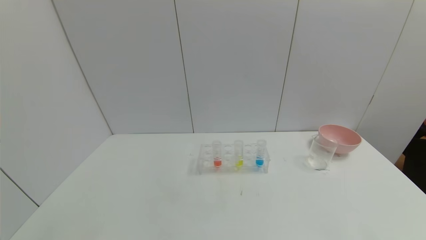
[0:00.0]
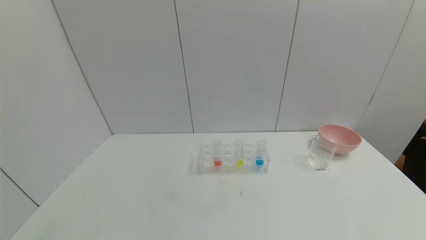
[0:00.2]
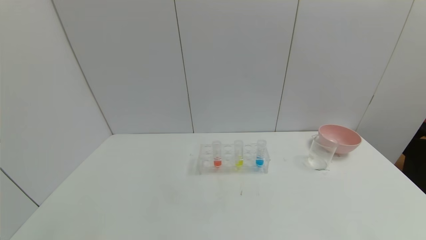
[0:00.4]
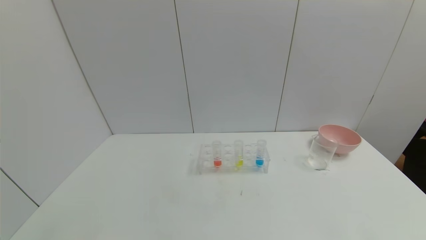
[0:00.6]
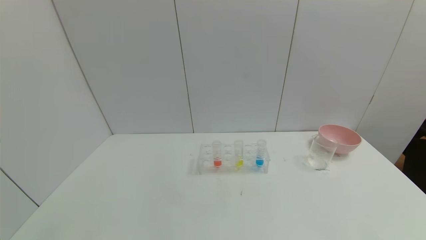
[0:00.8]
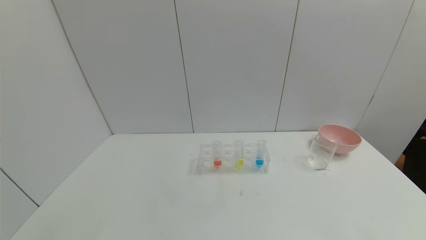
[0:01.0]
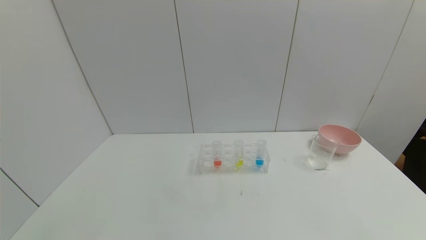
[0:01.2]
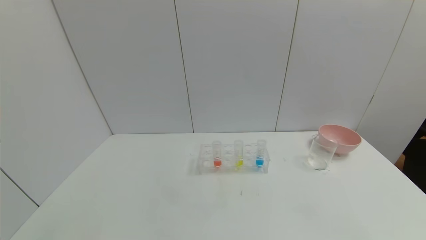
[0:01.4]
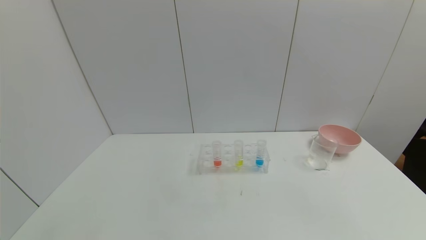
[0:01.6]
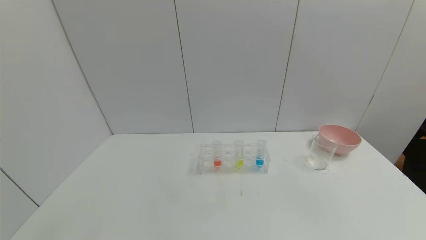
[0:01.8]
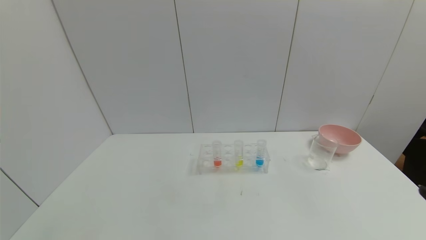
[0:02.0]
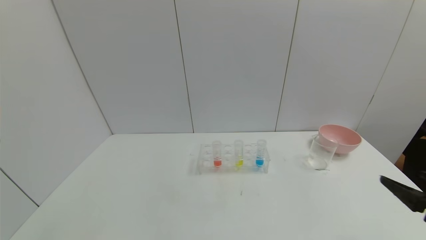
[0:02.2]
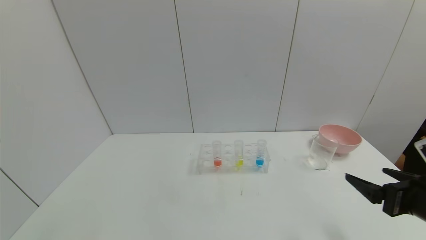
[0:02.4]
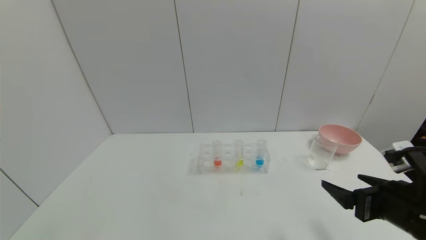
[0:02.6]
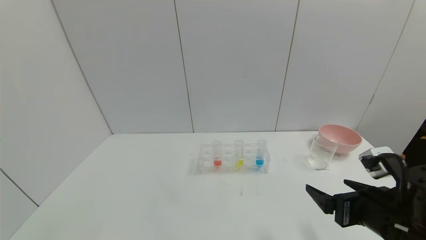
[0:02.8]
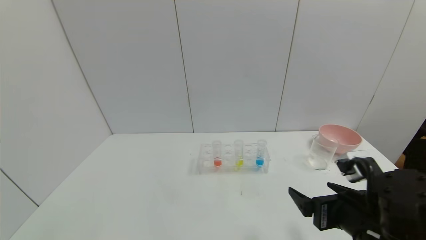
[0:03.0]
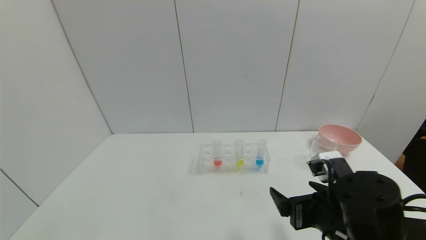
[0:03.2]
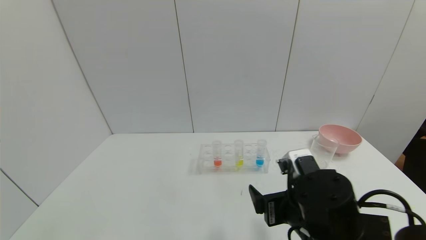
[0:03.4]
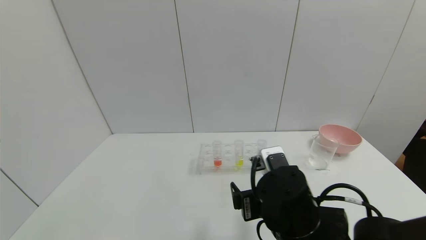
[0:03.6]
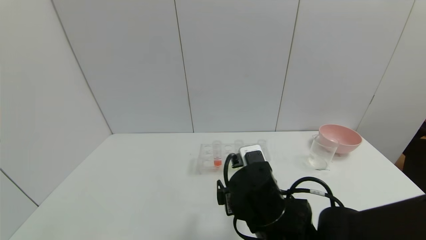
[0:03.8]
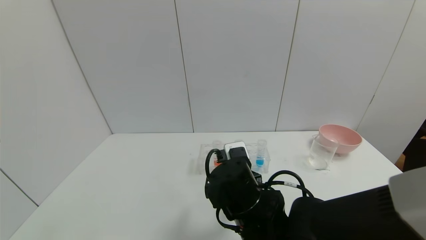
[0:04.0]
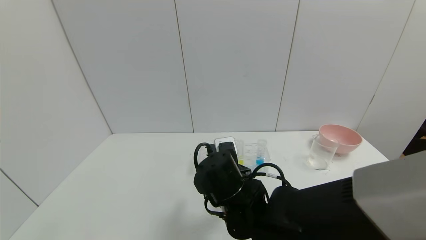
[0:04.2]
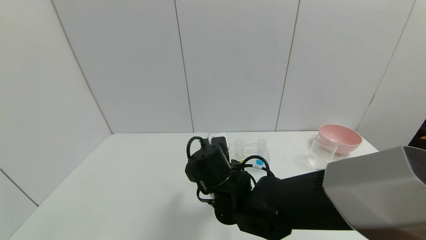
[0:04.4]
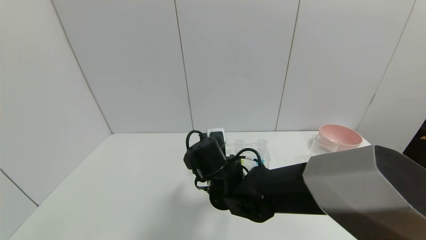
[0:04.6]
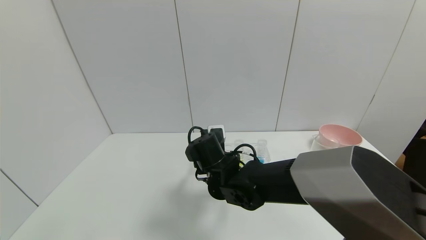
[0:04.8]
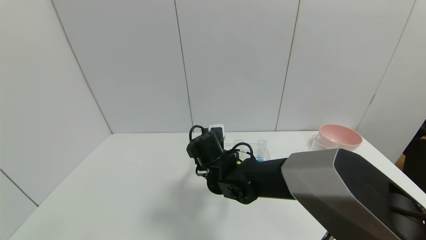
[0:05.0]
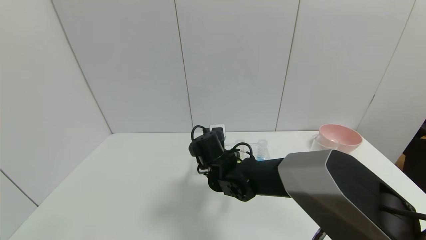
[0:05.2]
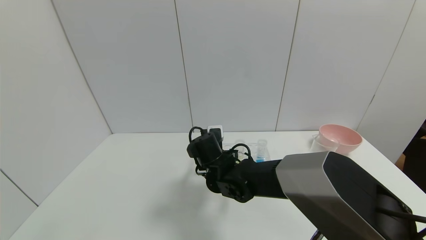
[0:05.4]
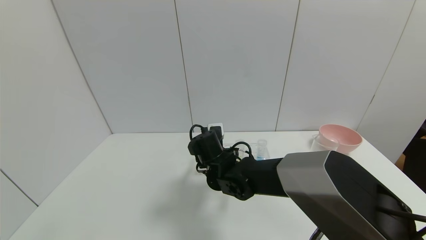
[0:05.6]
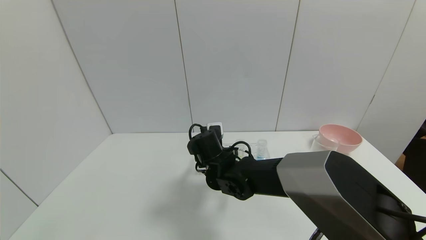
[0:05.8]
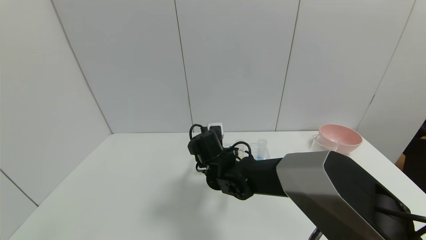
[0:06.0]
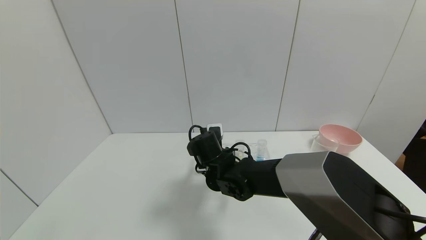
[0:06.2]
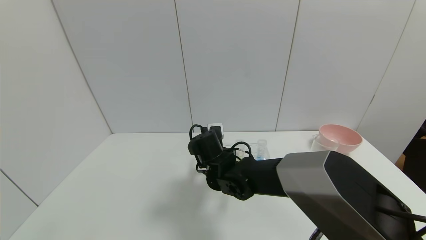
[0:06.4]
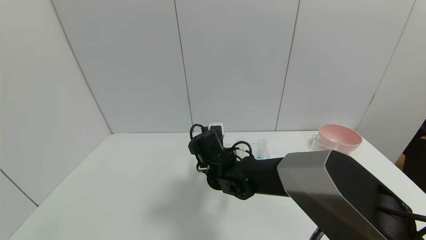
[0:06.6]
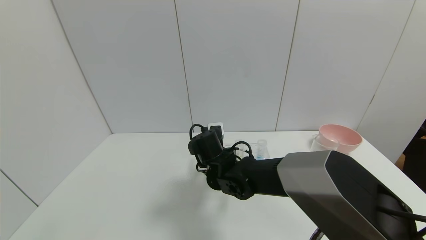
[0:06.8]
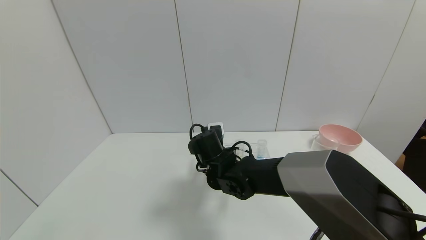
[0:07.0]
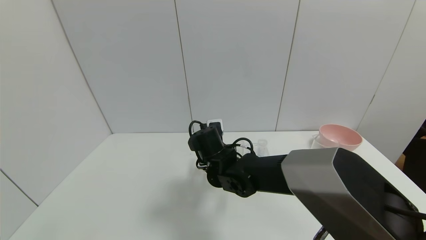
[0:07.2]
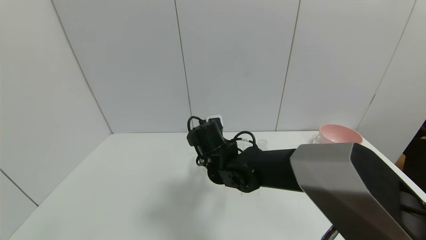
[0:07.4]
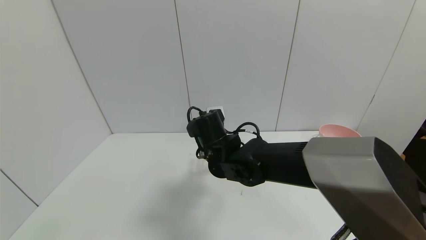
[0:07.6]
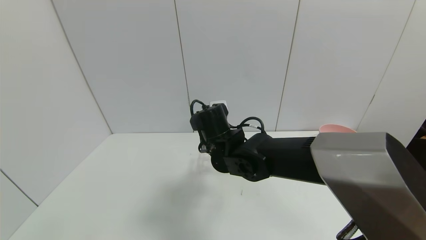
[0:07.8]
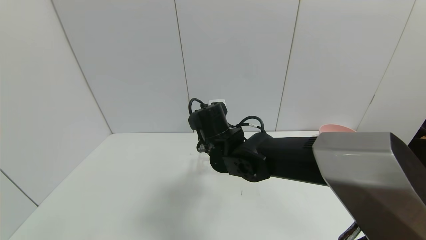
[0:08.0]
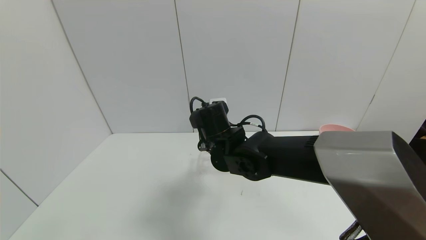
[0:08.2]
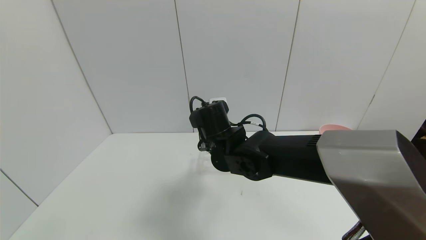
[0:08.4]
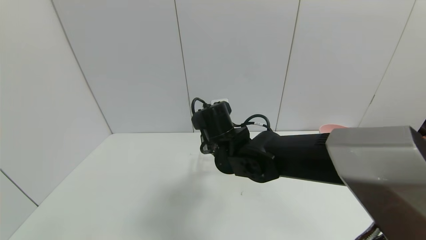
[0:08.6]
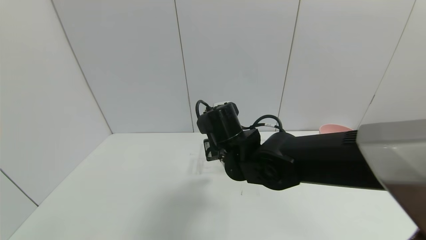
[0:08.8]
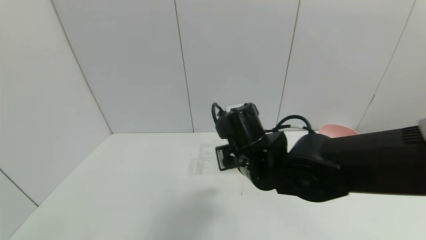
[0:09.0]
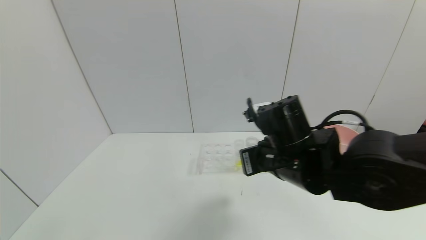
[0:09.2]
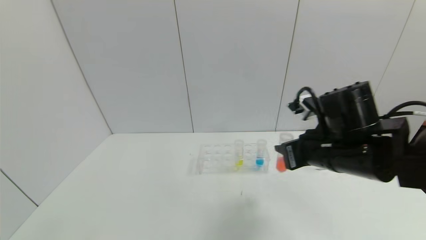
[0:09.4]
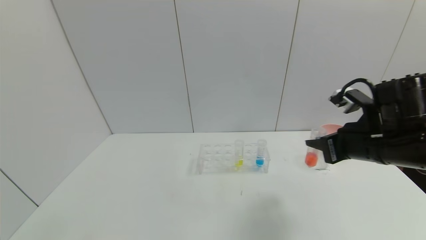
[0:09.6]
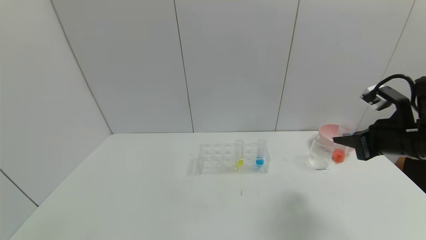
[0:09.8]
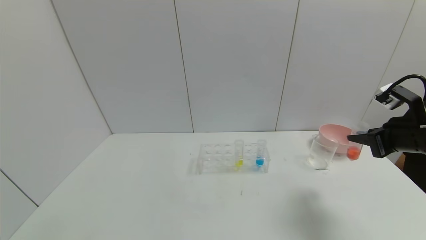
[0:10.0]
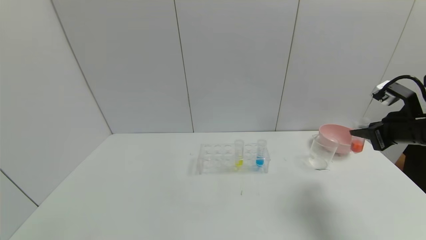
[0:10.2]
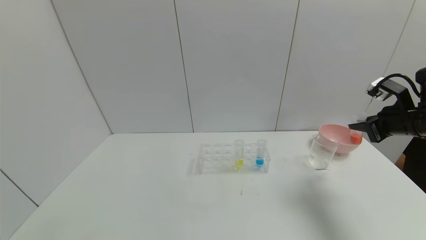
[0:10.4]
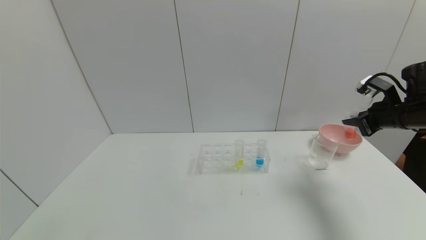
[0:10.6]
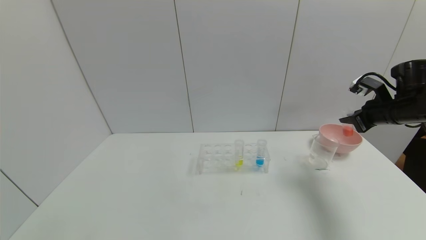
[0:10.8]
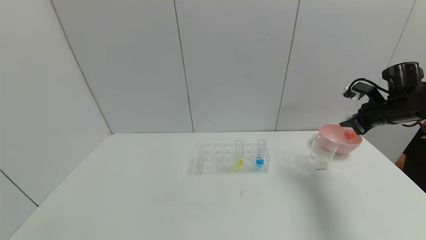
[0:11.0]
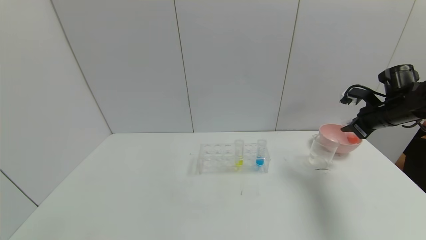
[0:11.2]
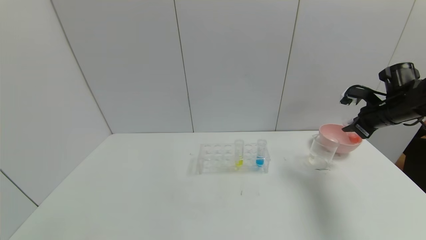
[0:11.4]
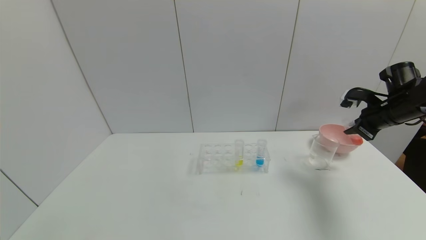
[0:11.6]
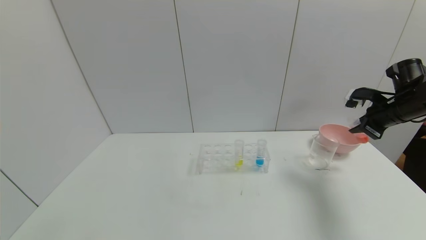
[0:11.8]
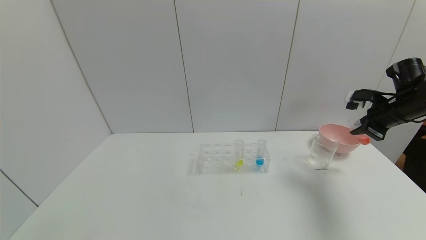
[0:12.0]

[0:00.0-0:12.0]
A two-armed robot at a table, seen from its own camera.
Task of the whole recording: pick up the test tube with yellow pigment and the test tube with red pigment by grippers and pour them into the beaker.
Step, 0:00.0 to 0:06.6: Grasp the red reagent with the right gripper.
0:01.6 to 0:03.0: The right gripper goes about 25 cm forward and to the left.
0:03.0 to 0:04.4: The right gripper moves to the left and forward, roughly 25 cm.
0:04.4 to 0:06.0: The right gripper moves forward, approximately 10 cm.
0:06.0 to 0:07.6: The right gripper shifts about 5 cm upward, and closes its fingers.
0:07.6 to 0:09.0: The right gripper travels backward and to the right by about 10 cm.
0:09.0 to 0:10.4: The right gripper shifts some 35 cm to the right.
0:10.4 to 0:12.0: The right gripper shifts some 5 cm forward.

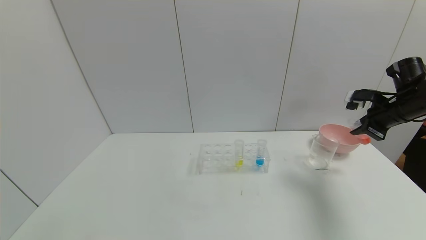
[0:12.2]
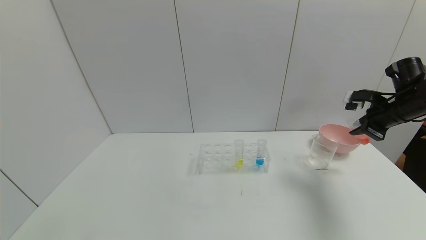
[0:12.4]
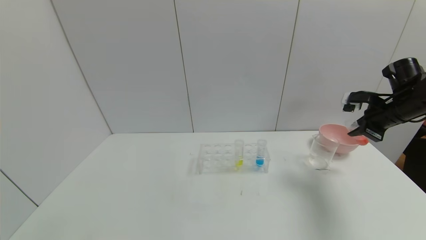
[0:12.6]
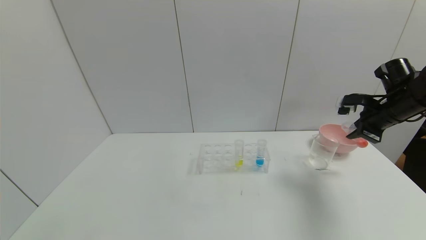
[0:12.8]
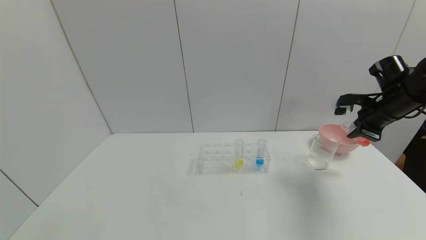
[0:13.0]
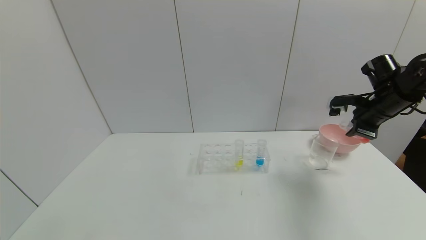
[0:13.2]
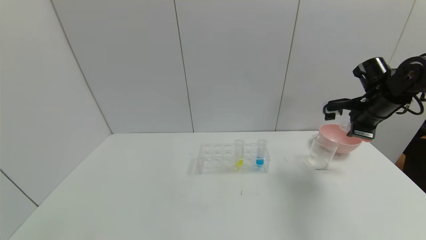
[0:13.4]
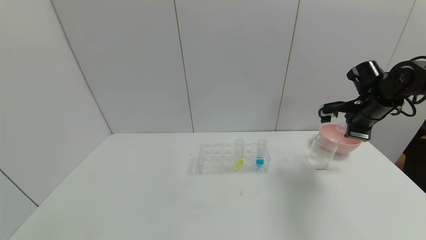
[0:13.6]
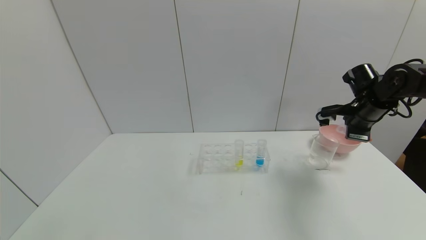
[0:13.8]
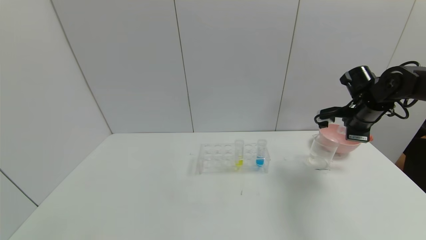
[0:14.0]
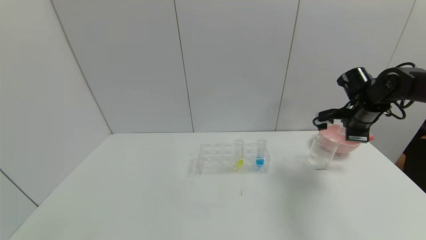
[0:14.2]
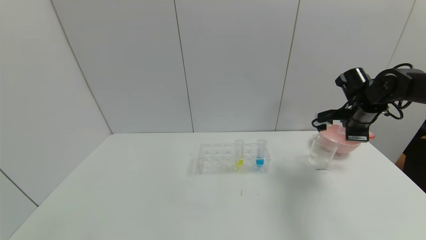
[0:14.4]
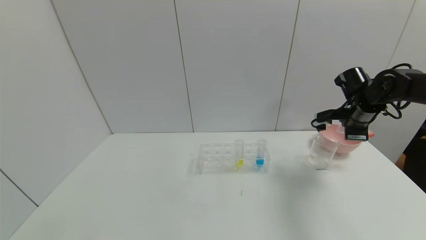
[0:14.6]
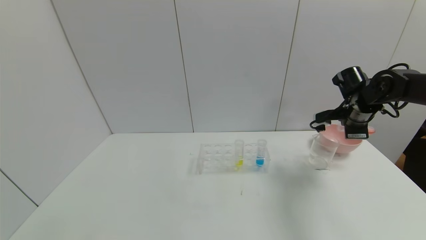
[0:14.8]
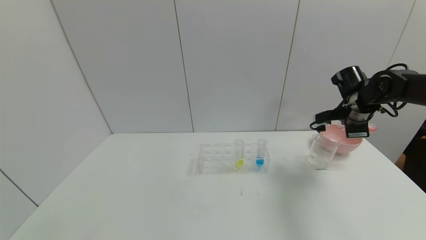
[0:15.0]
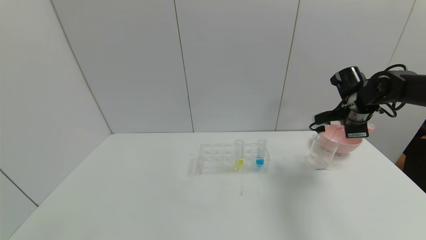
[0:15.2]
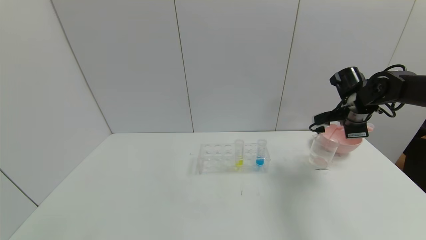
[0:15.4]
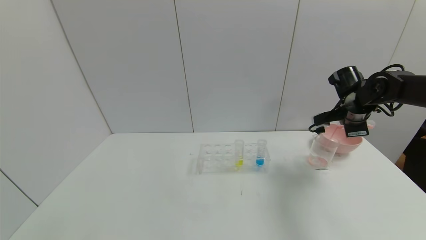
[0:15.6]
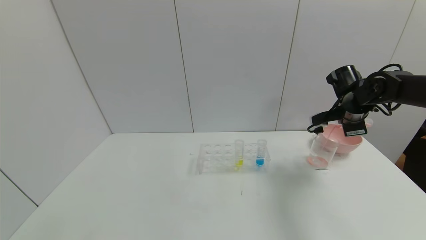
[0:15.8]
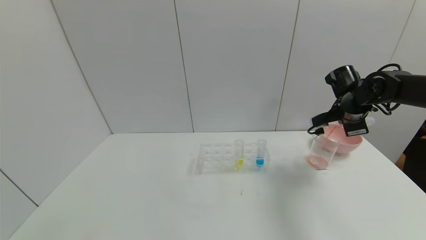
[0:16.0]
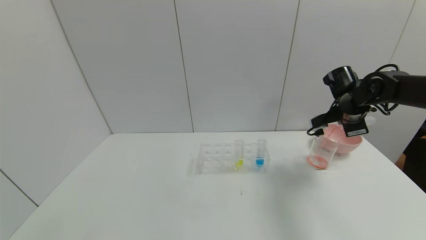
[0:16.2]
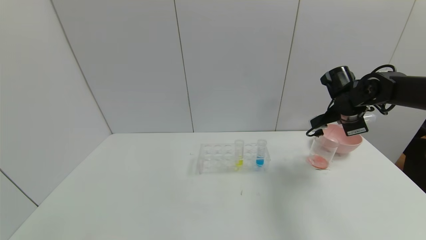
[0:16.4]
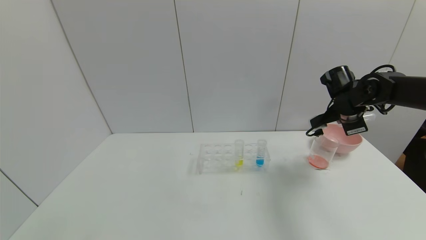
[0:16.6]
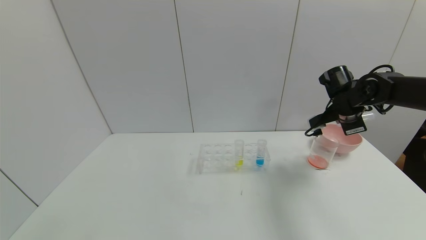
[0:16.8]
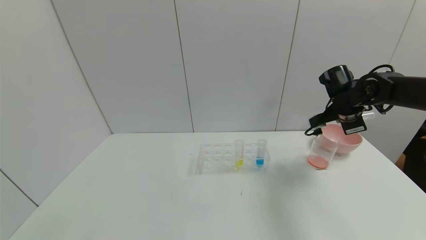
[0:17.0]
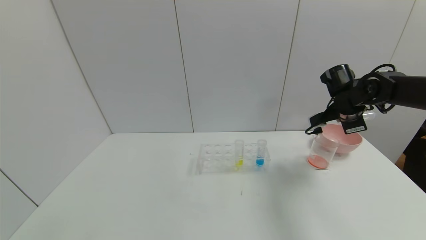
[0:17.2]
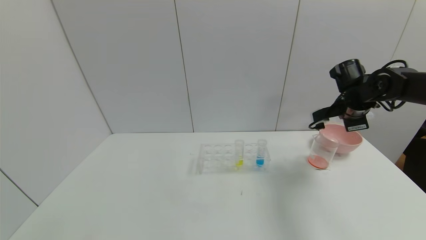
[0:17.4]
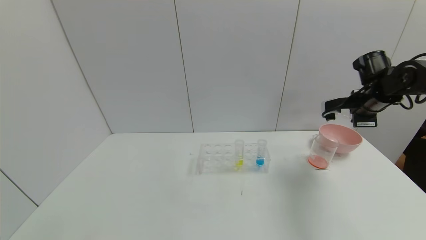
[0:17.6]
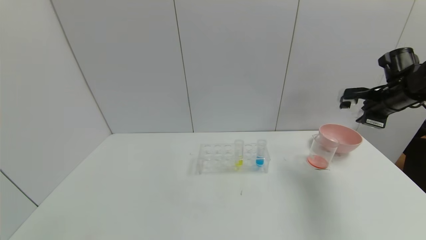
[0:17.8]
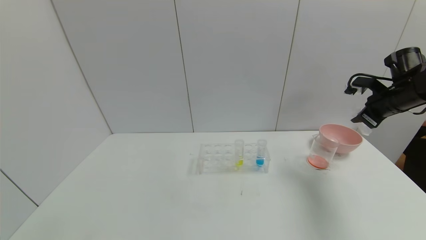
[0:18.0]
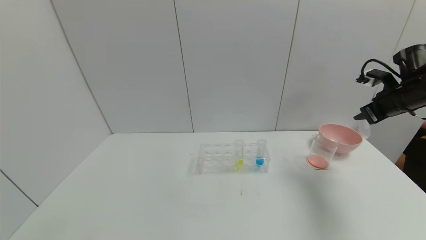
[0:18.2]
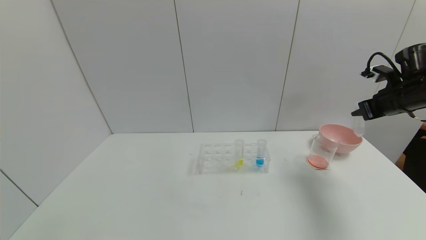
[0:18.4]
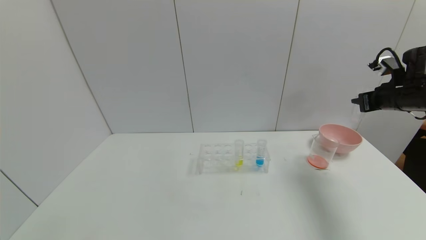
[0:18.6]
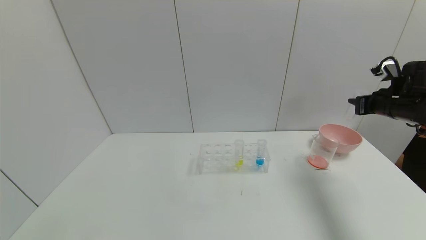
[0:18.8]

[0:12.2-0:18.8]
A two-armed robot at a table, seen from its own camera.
Task of the whole recording: pick up the test tube with yellow pigment and the test tube with red pigment by grippers and pour them into the beaker.
Step, 0:12.2 to 0:16.8: Pour the red reagent into the graduated cylinder with the right gripper.
0:12.2 to 0:13.8: The right gripper heads to the left, covering about 5 cm.
0:13.8 to 0:15.4: The grippers stay close to where they were, moving slightly.
0:15.4 to 0:17.2: The grippers move only a little.
0:17.2 to 0:18.8: The right gripper is displaced to the right by some 10 cm.
